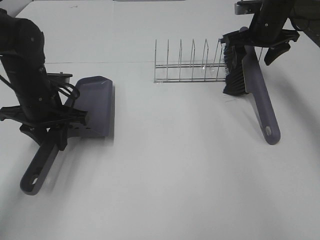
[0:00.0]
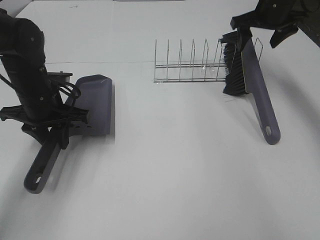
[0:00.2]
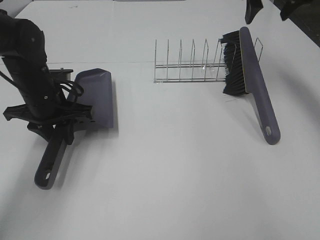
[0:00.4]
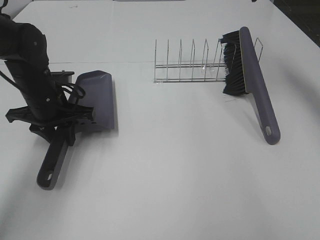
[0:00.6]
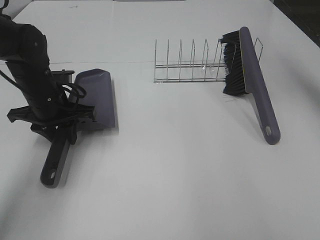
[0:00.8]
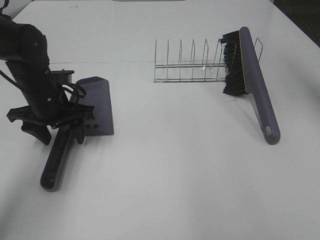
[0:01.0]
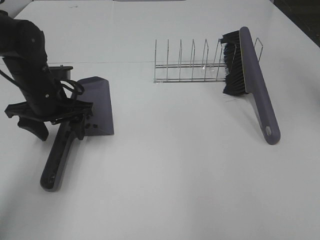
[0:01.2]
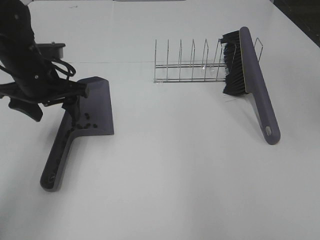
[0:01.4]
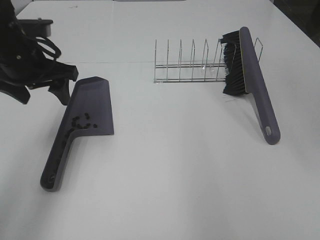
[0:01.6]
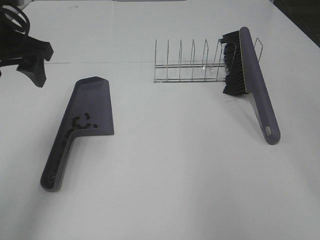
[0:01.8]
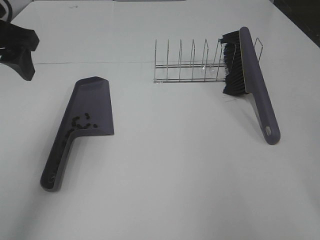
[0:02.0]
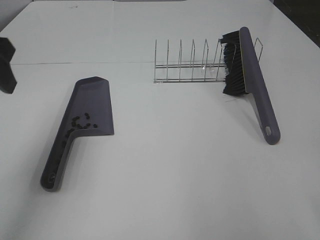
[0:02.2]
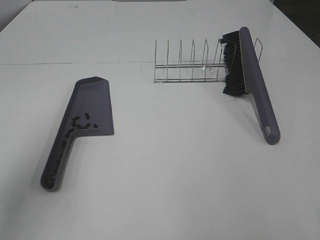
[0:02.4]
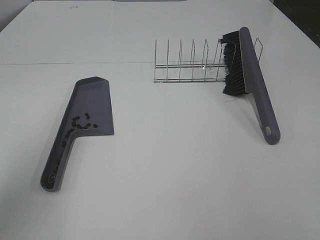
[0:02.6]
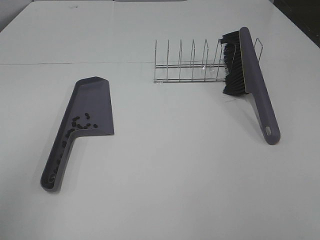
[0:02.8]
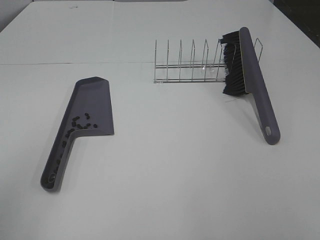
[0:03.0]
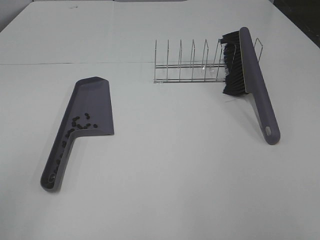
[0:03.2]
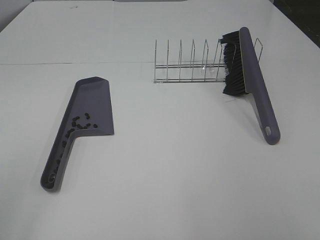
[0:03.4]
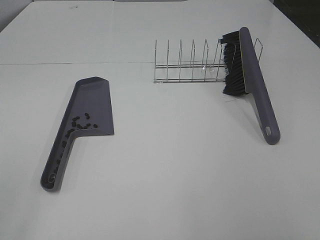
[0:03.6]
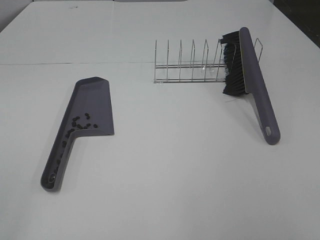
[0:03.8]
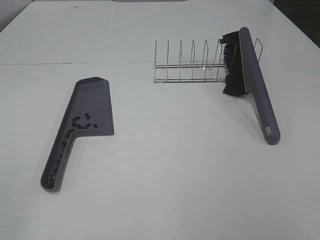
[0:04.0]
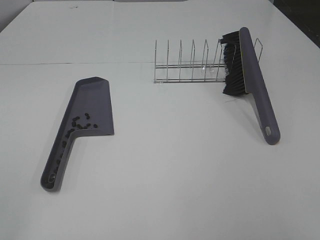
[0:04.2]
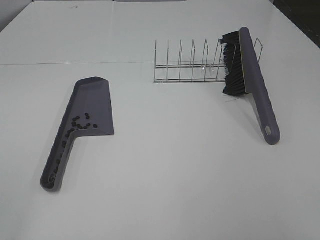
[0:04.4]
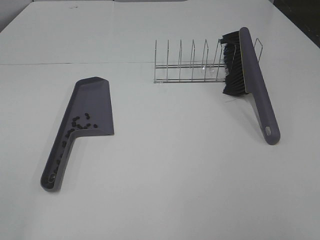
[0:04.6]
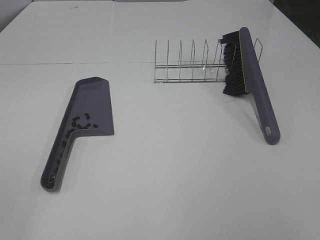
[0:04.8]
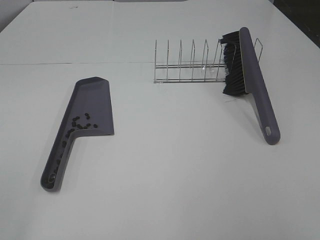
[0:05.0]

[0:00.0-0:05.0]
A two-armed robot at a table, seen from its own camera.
Task of the whole recording: Sweep Coffee Bean.
0:00.0 to 0:01.6: The left gripper travels upward by some 10 cm, and opens up, while the right gripper goes about 30 cm backward and upward.
0:01.6 to 0:03.4: The left gripper travels backward by roughly 30 cm.

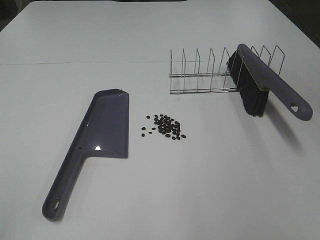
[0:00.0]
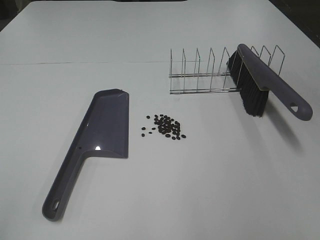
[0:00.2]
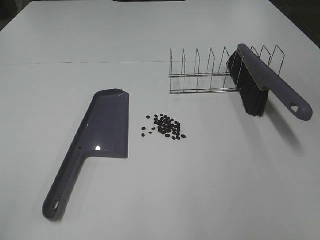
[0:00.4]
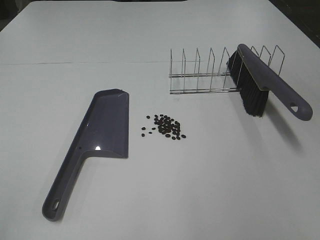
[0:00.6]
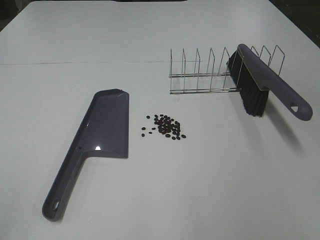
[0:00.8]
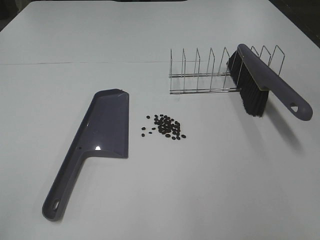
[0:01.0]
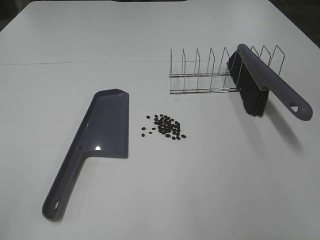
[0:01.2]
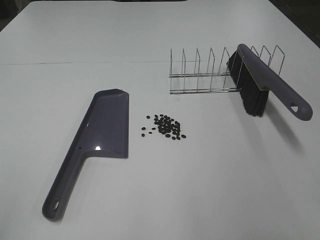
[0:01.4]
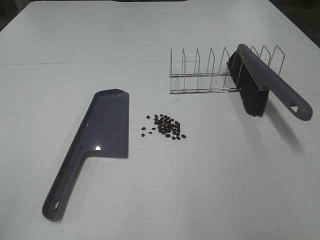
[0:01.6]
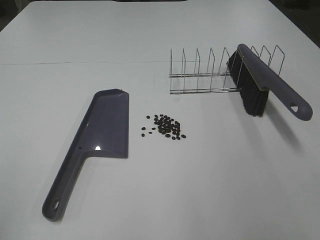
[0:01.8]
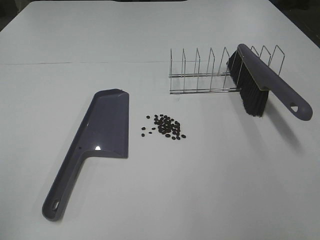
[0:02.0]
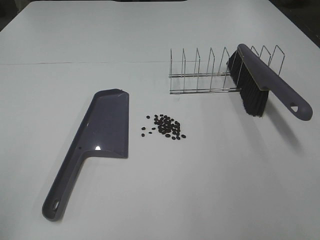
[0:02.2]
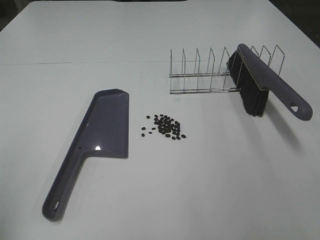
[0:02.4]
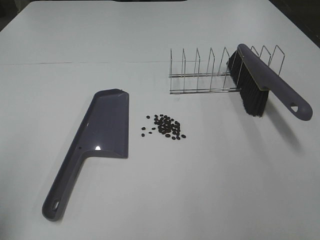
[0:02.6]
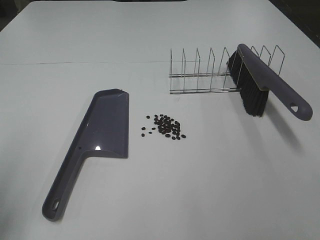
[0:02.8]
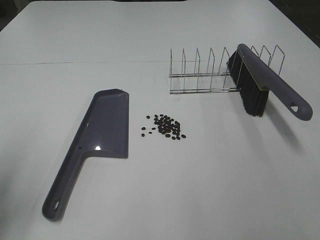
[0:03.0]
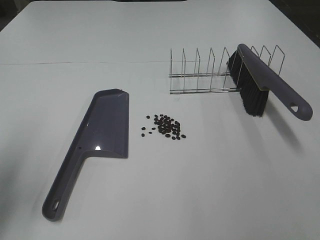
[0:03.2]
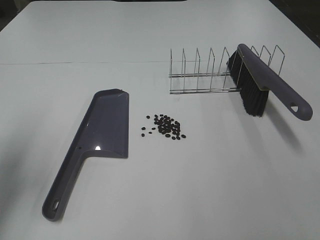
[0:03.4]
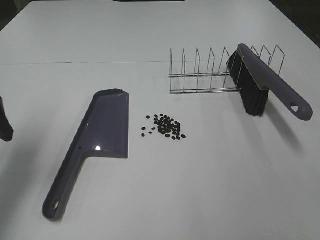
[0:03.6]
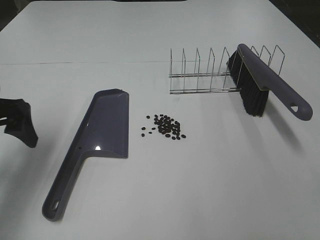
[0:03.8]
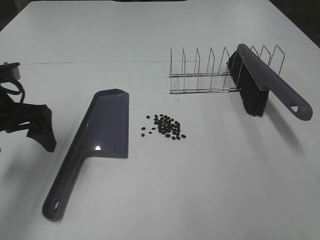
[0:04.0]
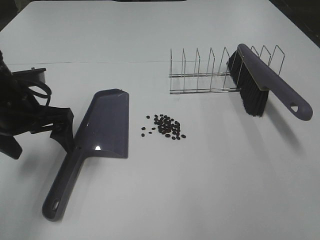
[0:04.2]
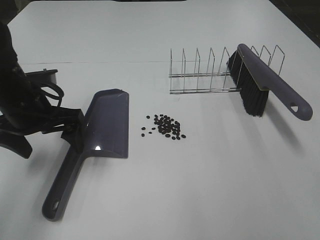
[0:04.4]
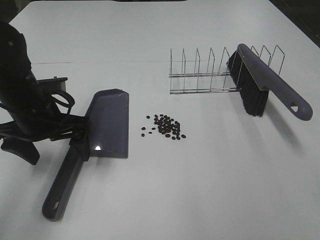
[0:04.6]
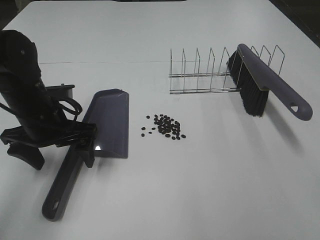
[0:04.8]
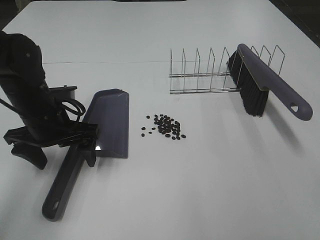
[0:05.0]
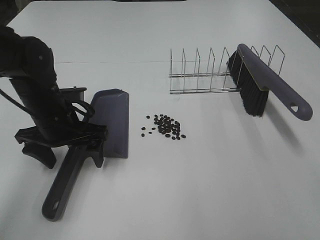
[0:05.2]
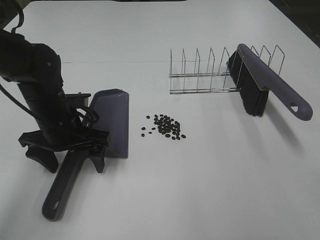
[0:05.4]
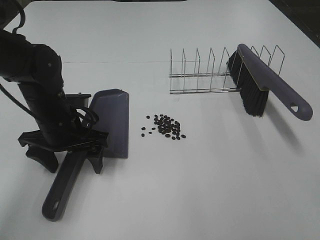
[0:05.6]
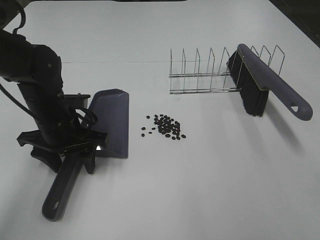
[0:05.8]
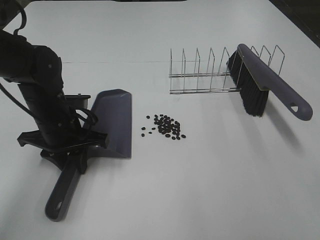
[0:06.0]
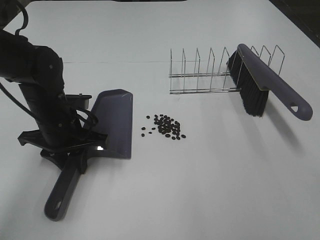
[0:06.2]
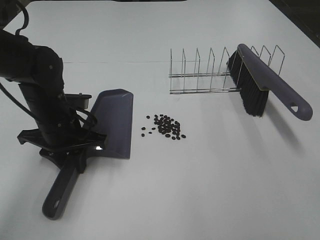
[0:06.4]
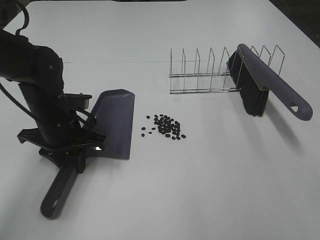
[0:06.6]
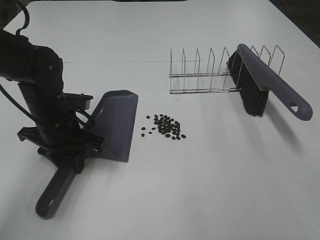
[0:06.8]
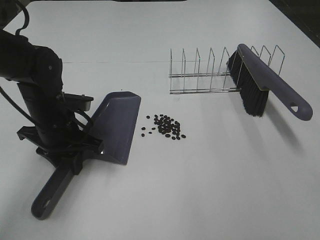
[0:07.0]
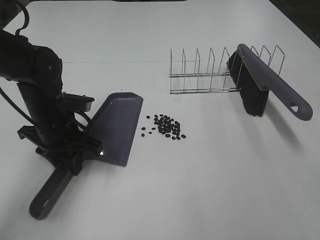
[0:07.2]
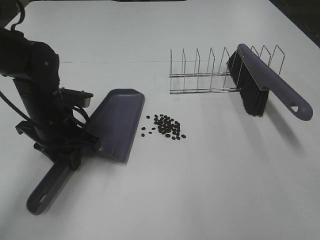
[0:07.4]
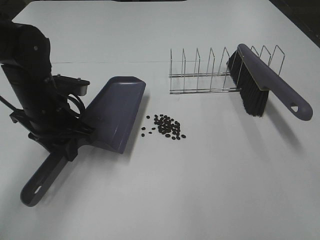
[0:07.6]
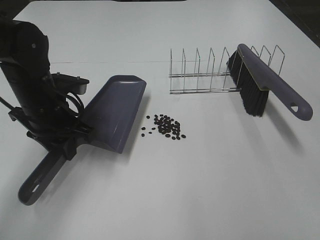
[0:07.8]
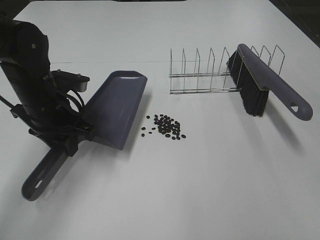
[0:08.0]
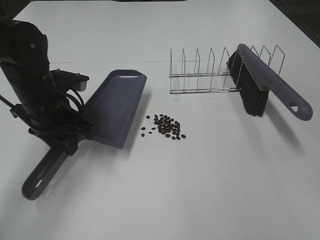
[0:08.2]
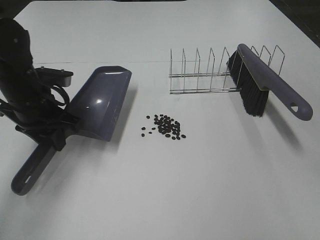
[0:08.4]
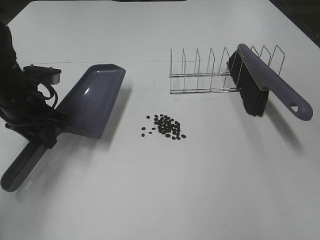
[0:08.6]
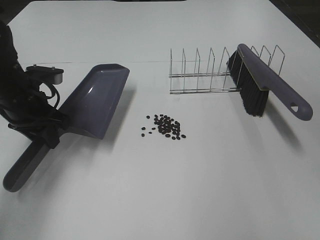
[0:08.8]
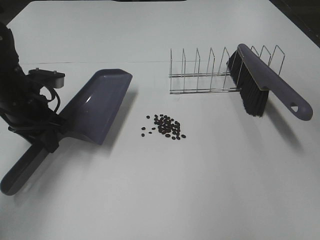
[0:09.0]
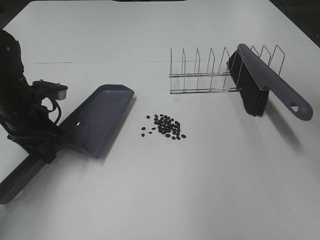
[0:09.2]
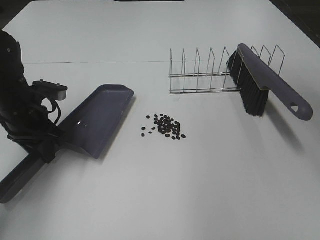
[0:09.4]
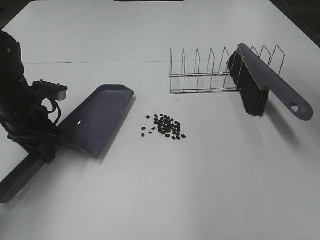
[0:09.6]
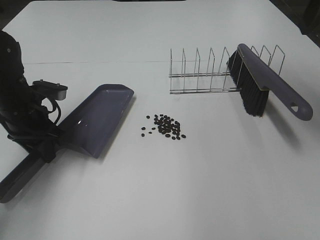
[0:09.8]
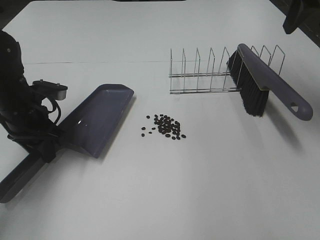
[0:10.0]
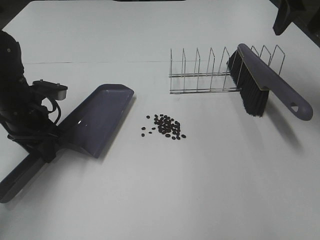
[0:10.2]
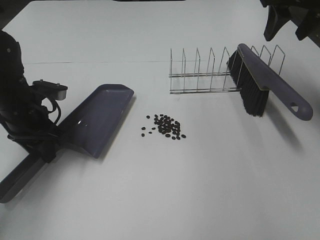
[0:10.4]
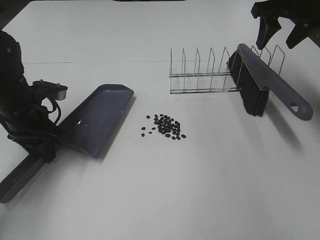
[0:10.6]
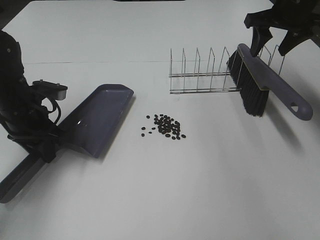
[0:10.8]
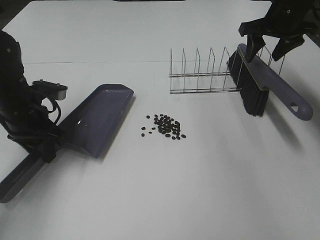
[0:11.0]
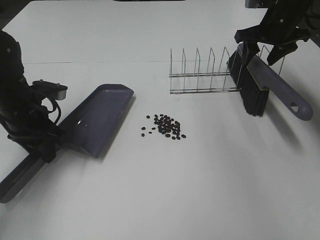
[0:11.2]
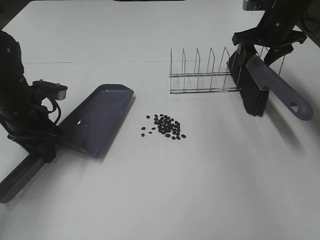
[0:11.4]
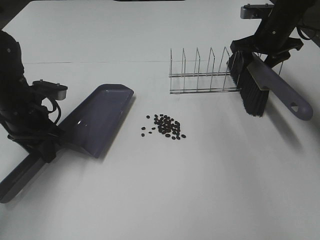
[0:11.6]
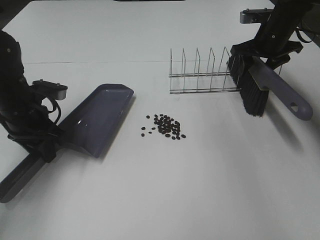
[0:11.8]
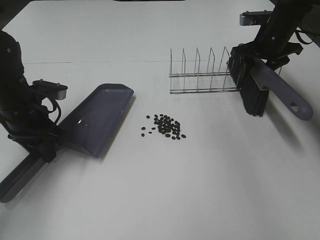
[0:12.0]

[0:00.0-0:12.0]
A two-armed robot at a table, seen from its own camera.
Task of the whole recording: Sweep Coffee Bean.
Step, 0:00.0 to 0:06.2: Left hand: grab the dustpan.
0:01.6 to 0:03.0: The left gripper goes some 15 cm forward.
0:03.0 to 0:04.4: The left gripper travels forward, to the right and downward by some 20 cm.
0:04.4 to 0:06.0: The left gripper heads downward, covering approximately 5 cm, and closes up.
0:06.0 to 0:07.6: There are only small adjustments of the grippers.
0:07.6 to 0:09.0: The right gripper goes roughly 15 cm forward and upward. The left gripper heads to the left, covering some 5 cm.
0:09.0 to 0:10.4: The right gripper moves forward, roughly 30 cm.
0:10.4 to 0:12.0: The right gripper moves downward and forward, some 15 cm.

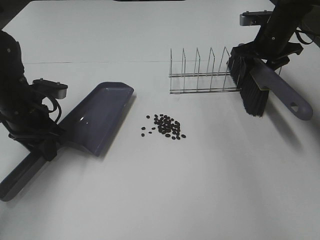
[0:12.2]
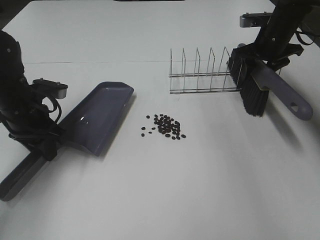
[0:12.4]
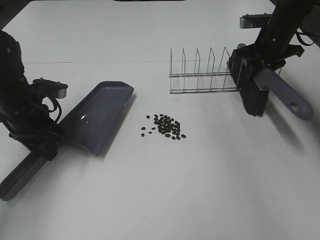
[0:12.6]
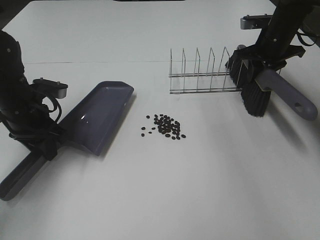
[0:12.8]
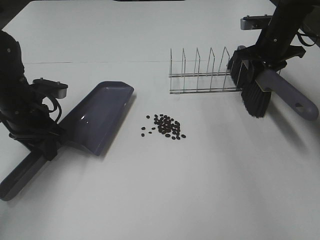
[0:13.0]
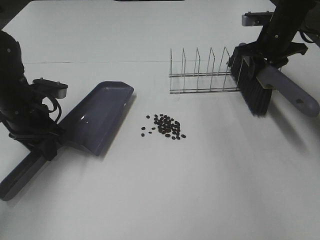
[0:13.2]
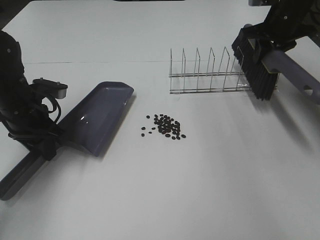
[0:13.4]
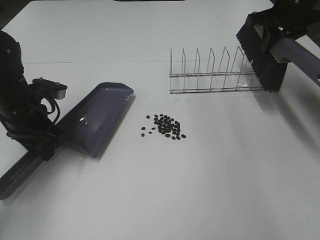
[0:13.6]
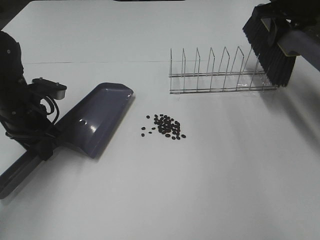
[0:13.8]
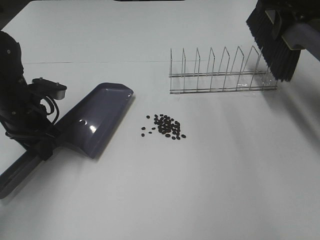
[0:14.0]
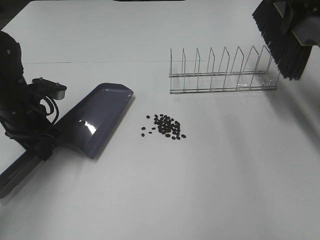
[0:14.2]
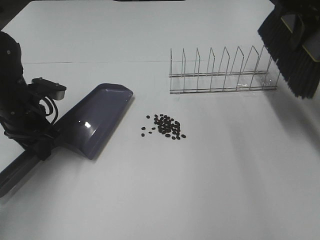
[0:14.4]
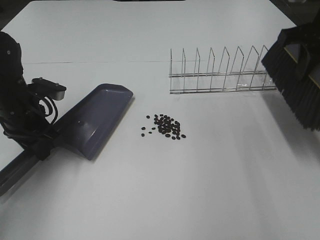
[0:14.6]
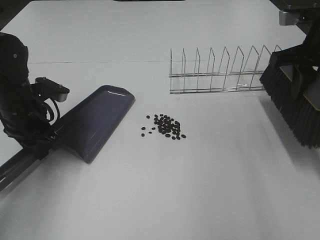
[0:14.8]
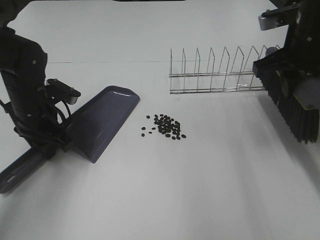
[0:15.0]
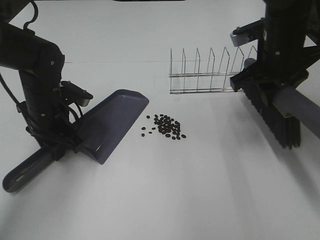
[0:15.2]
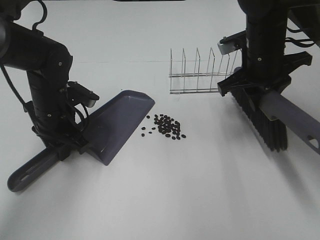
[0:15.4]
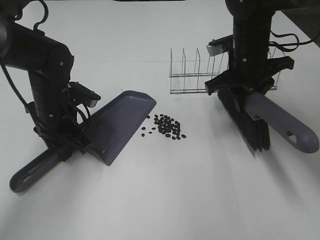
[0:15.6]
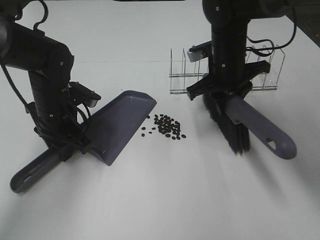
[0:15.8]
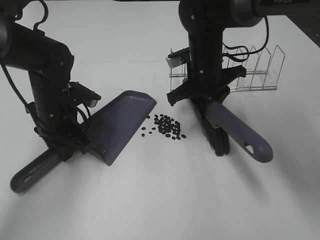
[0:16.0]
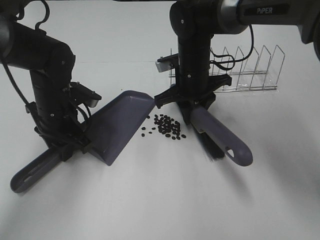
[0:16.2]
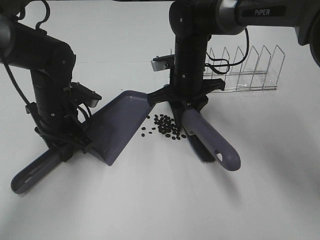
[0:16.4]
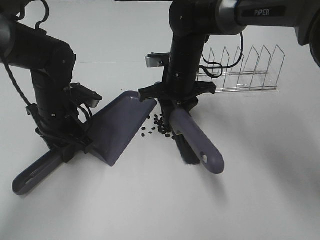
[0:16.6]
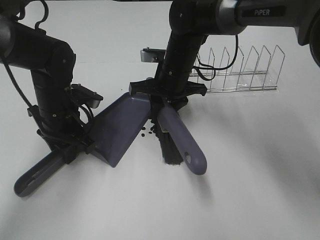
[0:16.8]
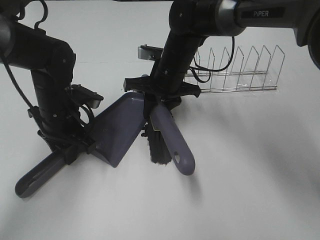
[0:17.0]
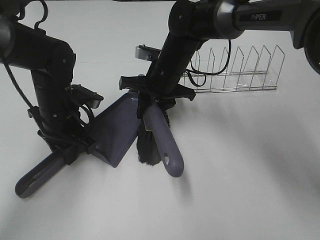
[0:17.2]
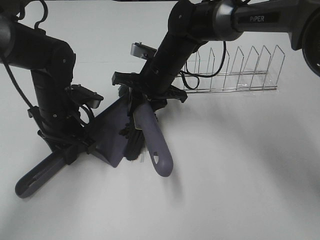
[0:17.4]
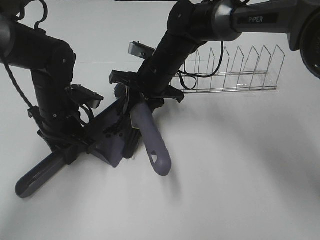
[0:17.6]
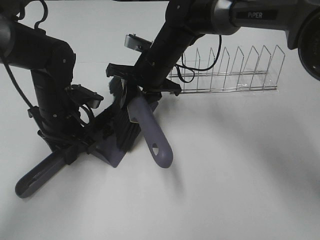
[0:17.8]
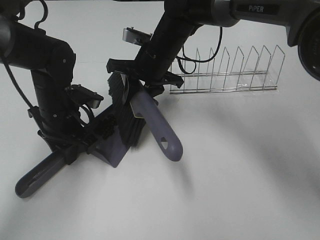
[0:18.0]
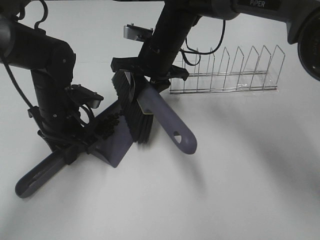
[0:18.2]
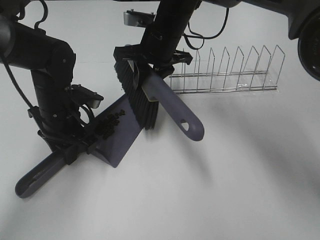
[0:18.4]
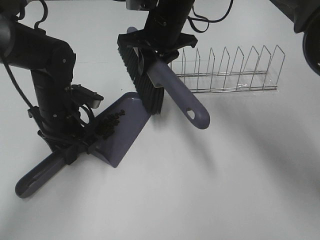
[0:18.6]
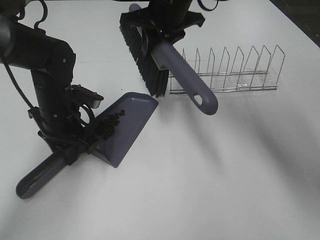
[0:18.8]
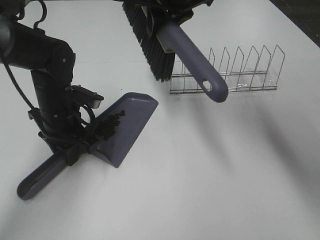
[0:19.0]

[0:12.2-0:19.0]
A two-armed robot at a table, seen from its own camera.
Task of the whole recording: Sweep Coffee Bean.
Step, 0:13.2 to 0:18.4: Right hand:sweep the coffee beans into the dustpan.
0:12.2 to 0:13.6: The right gripper goes some 10 cm upward, and closes up.
0:13.6 to 0:15.0: The right gripper goes some 15 cm backward and to the left.
0:15.0 to 0:16.2: The right gripper travels to the left, downward and forward by some 20 cm.
0:16.2 to 0:17.6: The right gripper is displaced to the left by some 5 cm.
0:17.6 to 0:19.0: The right gripper moves upward, about 15 cm.
